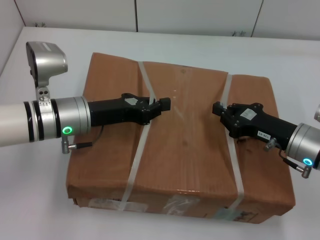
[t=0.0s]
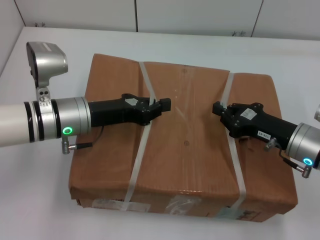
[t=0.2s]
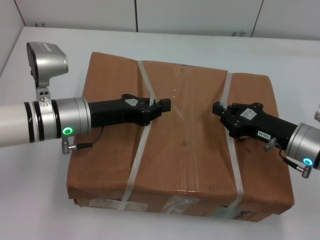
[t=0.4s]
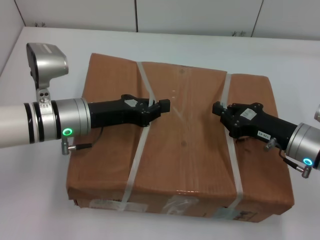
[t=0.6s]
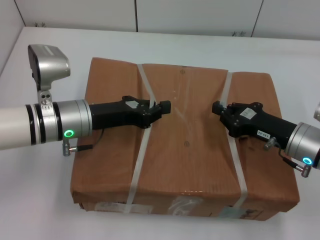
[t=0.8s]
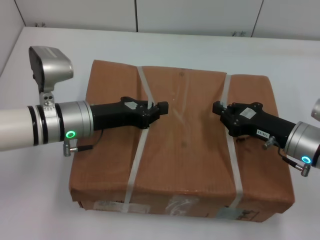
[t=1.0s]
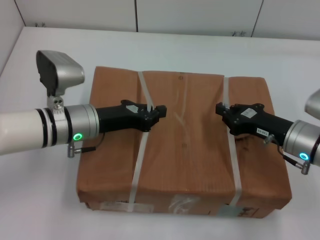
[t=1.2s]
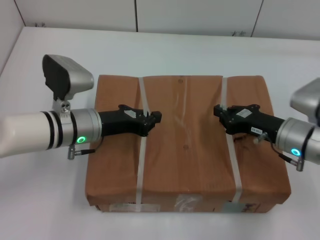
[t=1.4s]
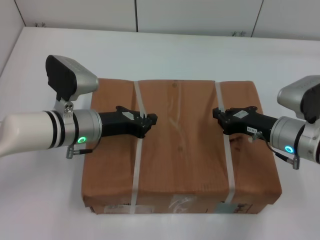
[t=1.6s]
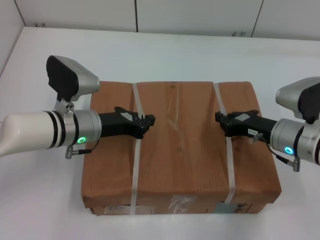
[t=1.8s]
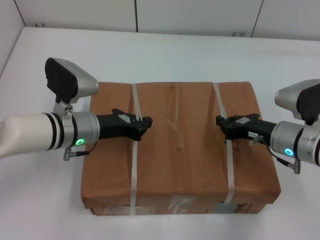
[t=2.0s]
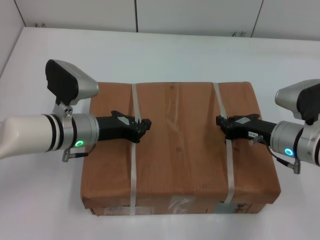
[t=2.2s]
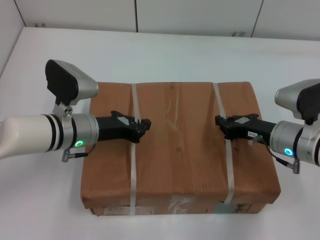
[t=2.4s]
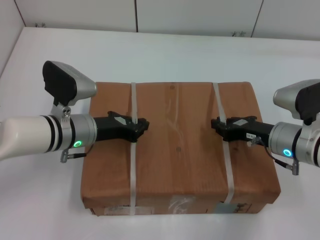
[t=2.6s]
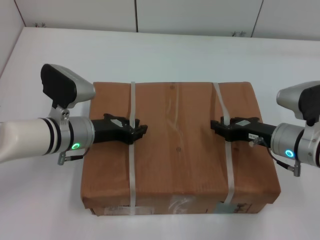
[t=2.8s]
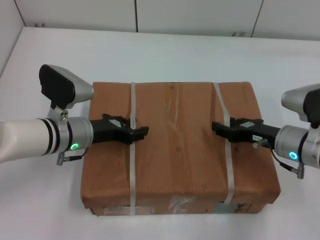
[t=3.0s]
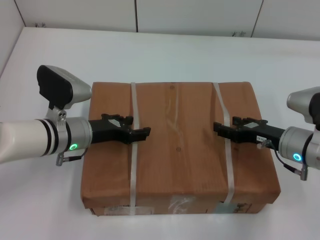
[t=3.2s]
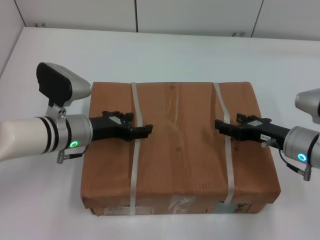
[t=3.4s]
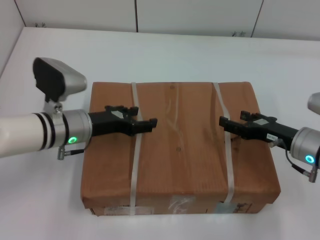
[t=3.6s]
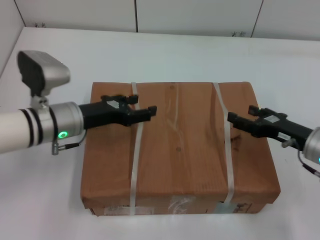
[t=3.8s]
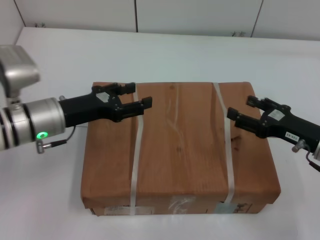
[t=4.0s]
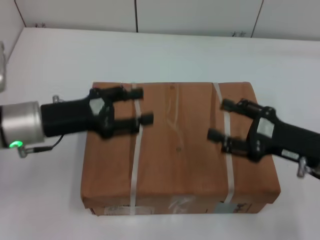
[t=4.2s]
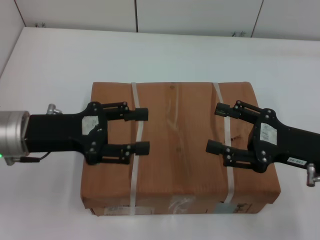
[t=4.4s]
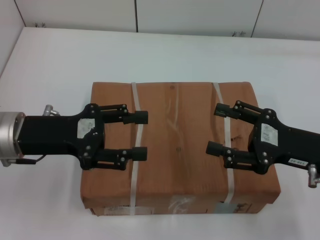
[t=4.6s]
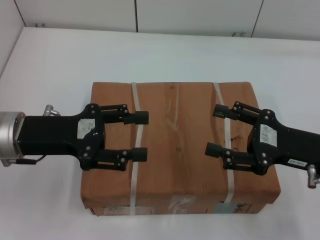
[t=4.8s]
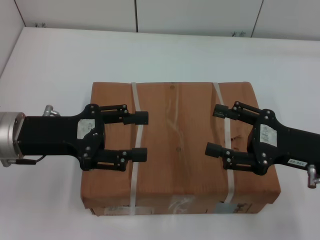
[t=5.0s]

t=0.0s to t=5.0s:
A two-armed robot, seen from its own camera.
Task of the whole recording: place the box on the table with both arms.
Step, t=0.0s to t=1.8s: Place the box on the table with left gripper.
Step, t=0.0s to t=1.8s: Place the box on the table with right gripper.
Step, t=2.0s to t=2.8s: Loosen the box on the table with left gripper.
Step, t=2.0s to t=2.8s: Loosen the box on the table with right gripper.
t=1.6s to t=3.4s: The right gripper opens up. Meanwhile the left gripper opens.
t=3.4s to t=5.0s: The left gripper moves upward, backward and to the left, some 15 cm, while the right gripper travels upward and backward by some 10 cm.

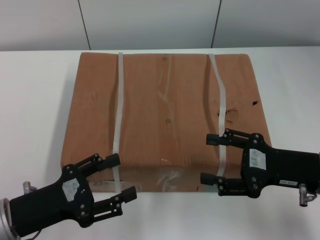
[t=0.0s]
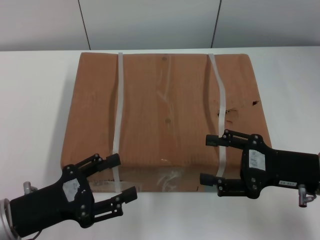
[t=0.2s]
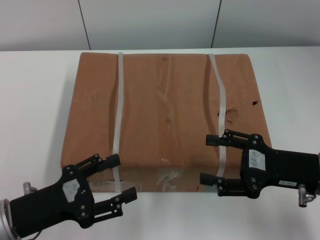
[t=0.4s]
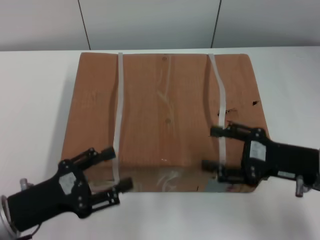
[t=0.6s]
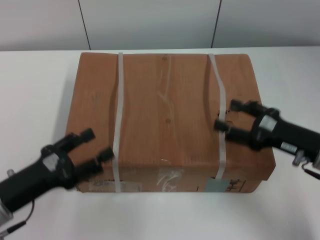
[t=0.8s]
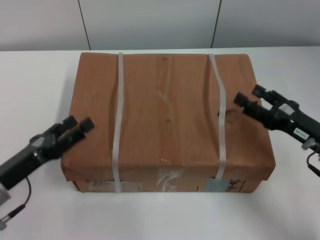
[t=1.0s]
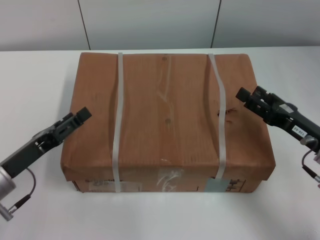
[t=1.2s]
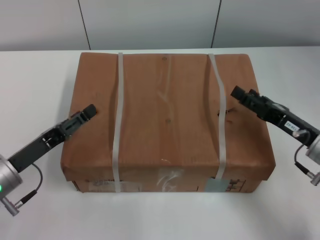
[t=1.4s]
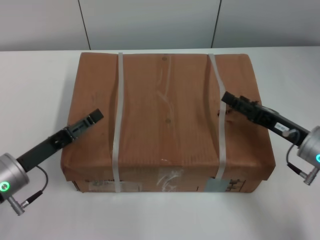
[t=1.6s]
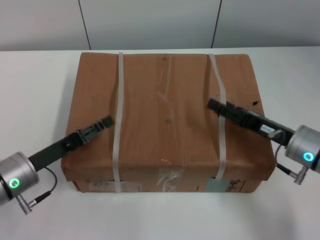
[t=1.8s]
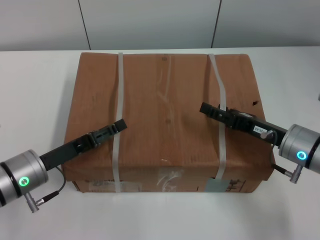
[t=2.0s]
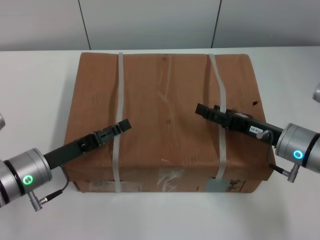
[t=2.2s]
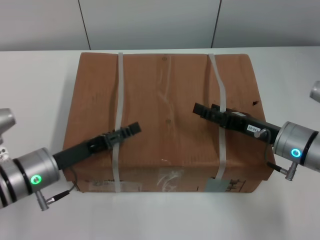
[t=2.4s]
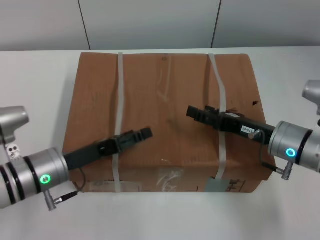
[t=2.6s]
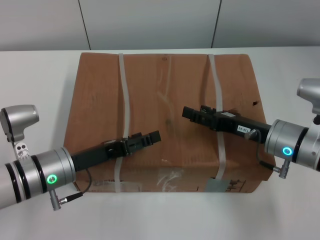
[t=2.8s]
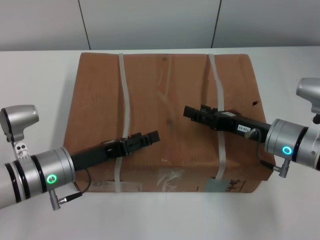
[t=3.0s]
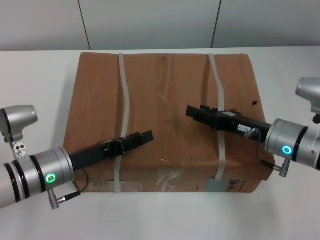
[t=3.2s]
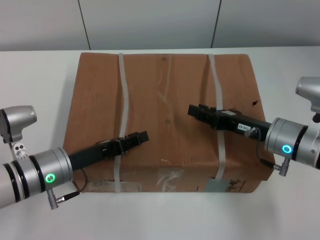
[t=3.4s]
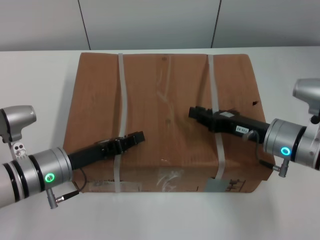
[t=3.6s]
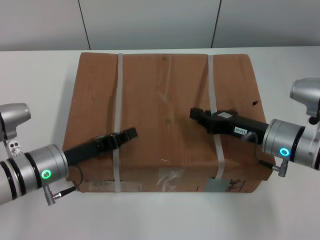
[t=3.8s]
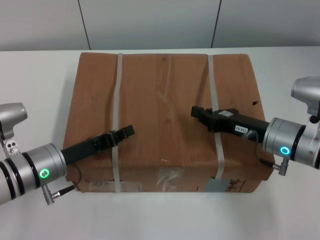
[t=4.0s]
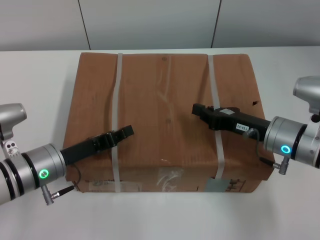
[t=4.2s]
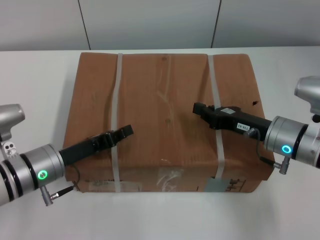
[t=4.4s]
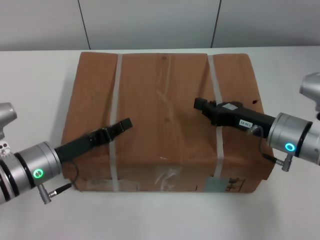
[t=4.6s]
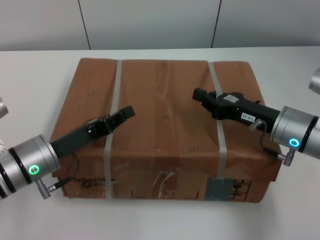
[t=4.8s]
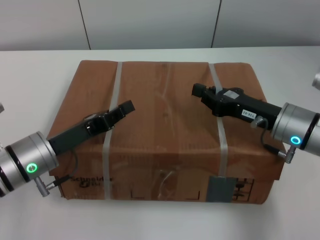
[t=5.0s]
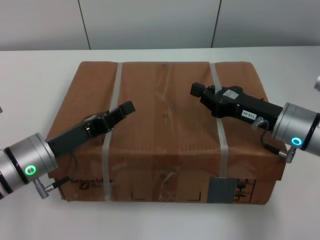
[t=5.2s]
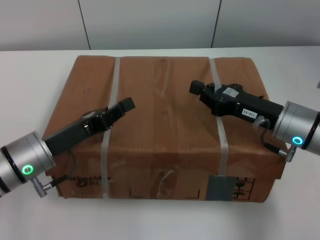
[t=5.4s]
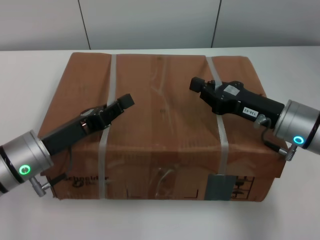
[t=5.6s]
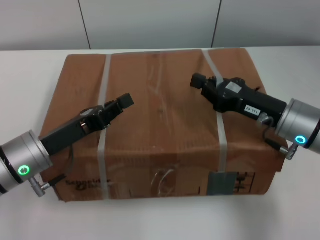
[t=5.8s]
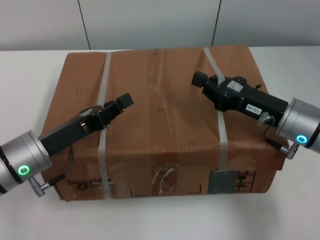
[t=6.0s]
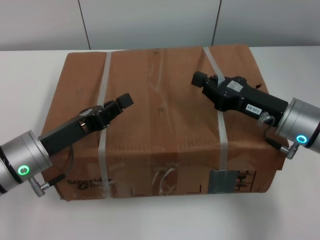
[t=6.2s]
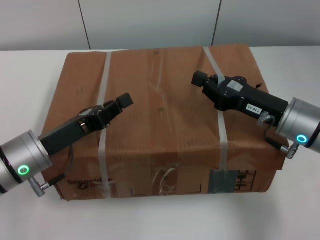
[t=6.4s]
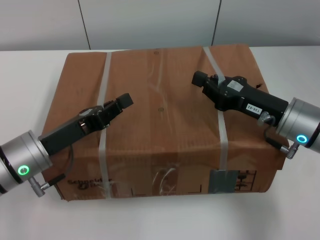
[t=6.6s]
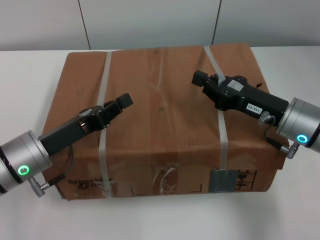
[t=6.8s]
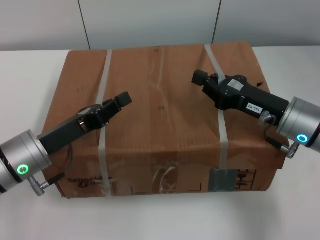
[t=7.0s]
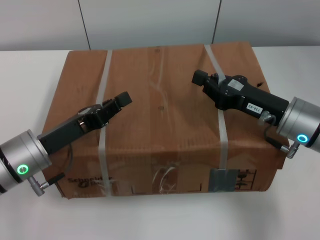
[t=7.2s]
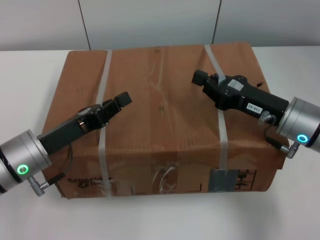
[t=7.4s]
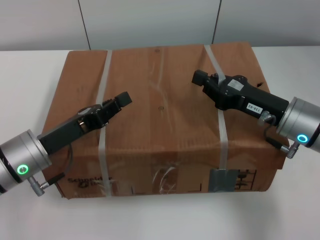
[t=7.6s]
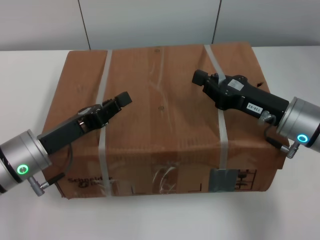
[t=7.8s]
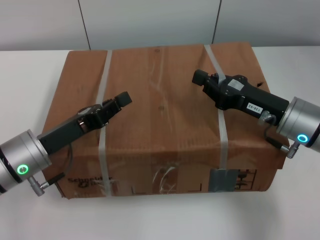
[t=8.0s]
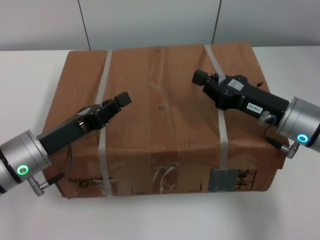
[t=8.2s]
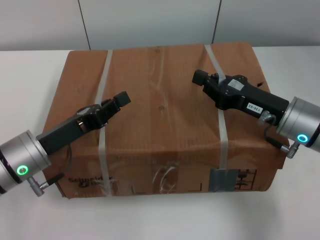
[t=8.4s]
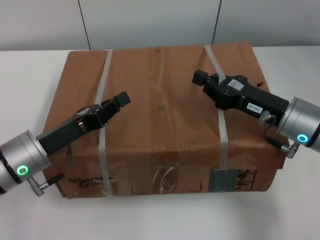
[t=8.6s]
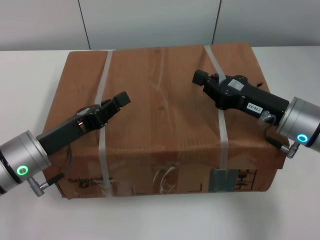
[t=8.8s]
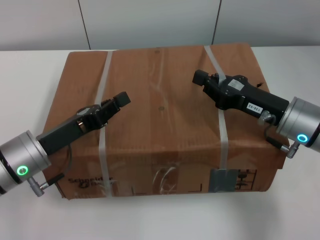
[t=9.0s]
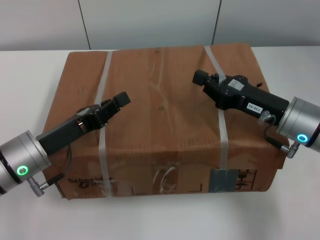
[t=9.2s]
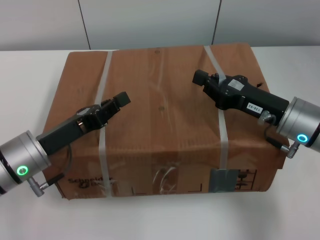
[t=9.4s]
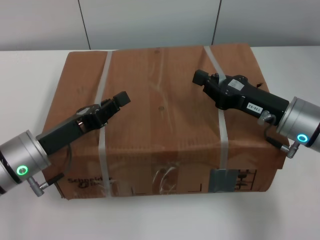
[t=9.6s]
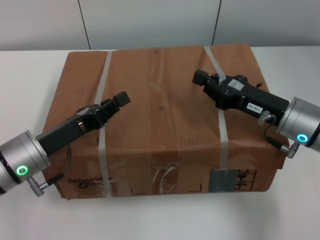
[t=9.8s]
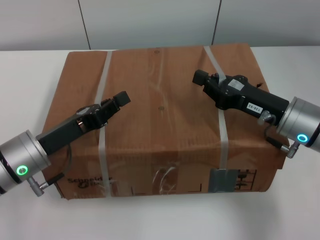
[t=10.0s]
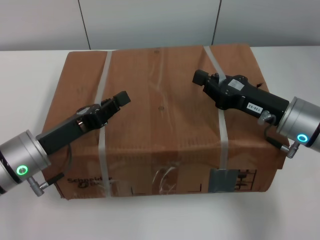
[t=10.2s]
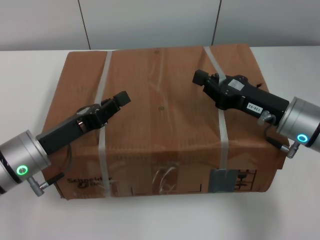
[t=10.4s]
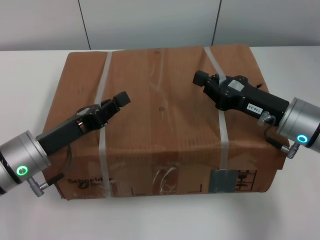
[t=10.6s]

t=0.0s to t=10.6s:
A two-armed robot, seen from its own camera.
Task of the whole recording: pick up the box from the table with both arms.
Step, t=0.0s to t=3.8s: Grasp the bandage with left gripper.
Step, t=0.0s to t=3.8s: Grasp the bandage with right gripper.
Step, t=4.0s to t=6.0s: Lift the box with left gripper.
Step, t=4.0s to t=6.0s: Lift the box with right gripper.
t=0.0s to t=1.6s: The right gripper moves roughly 5 cm; the left gripper is displaced forward by roughly 5 cm.
t=1.6s to t=3.0s: The left gripper moves to the right, some 5 cm. Meanwhile the right gripper ends up some 5 cm from where it was.
t=3.0s to t=4.6s: The right gripper closes up. Meanwhile the left gripper closes up.
t=6.0s to t=10.6s: The two grippers keep their place.
